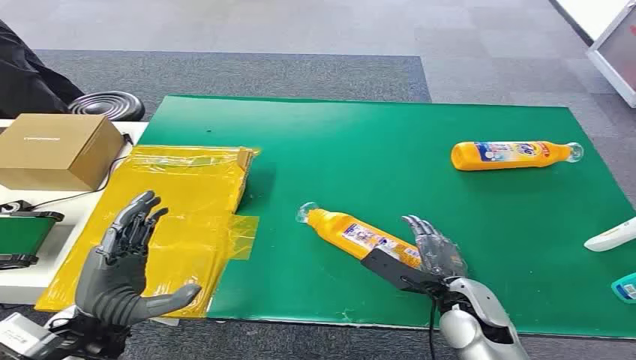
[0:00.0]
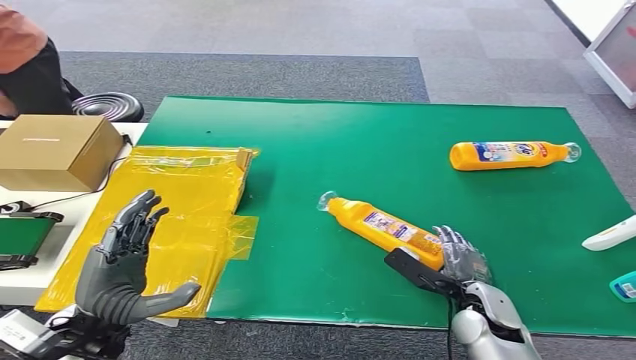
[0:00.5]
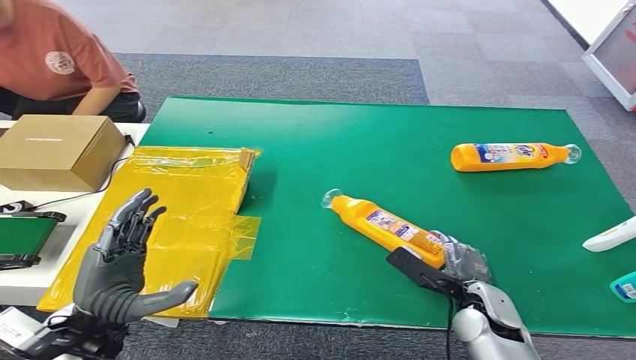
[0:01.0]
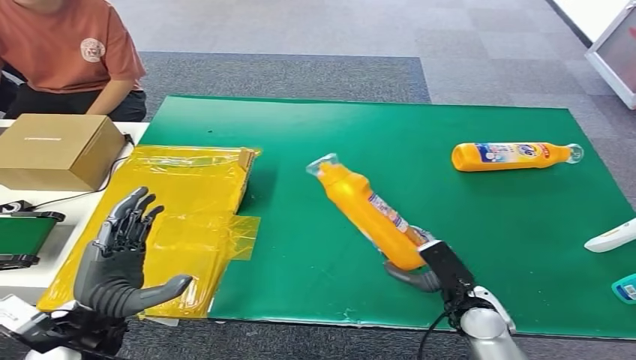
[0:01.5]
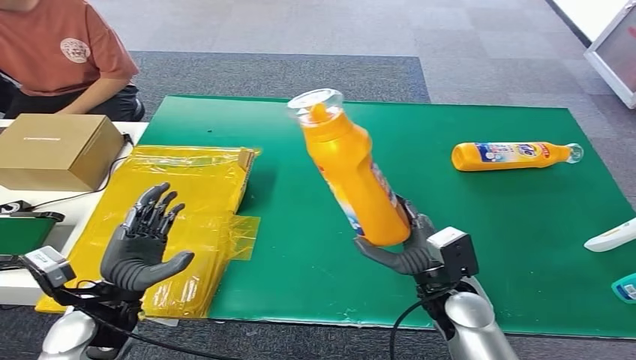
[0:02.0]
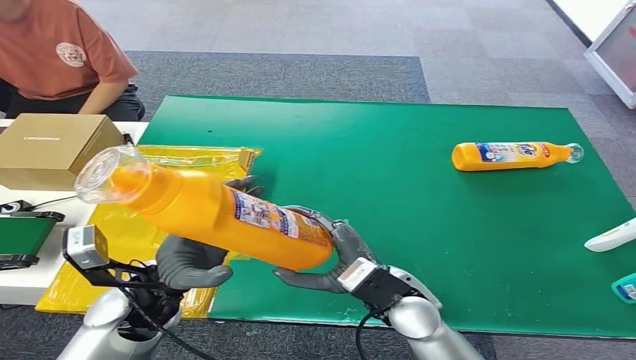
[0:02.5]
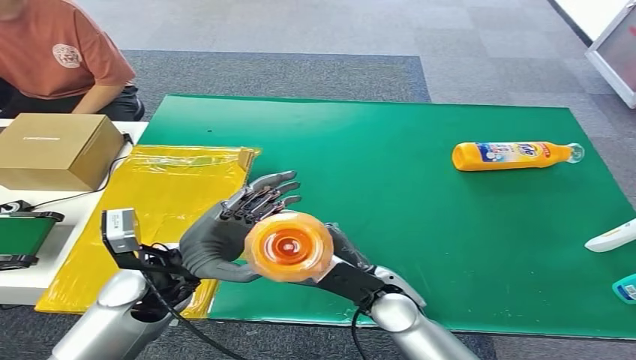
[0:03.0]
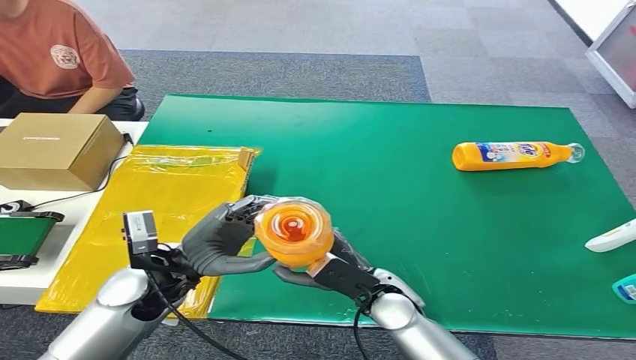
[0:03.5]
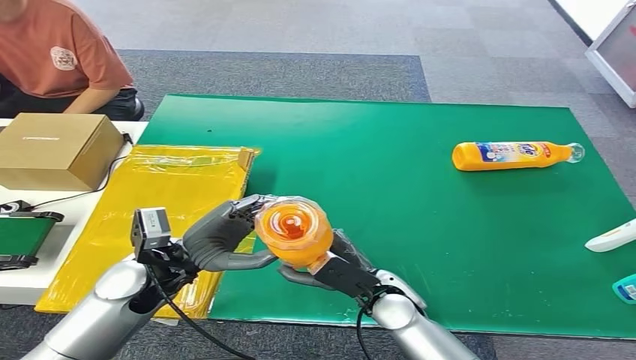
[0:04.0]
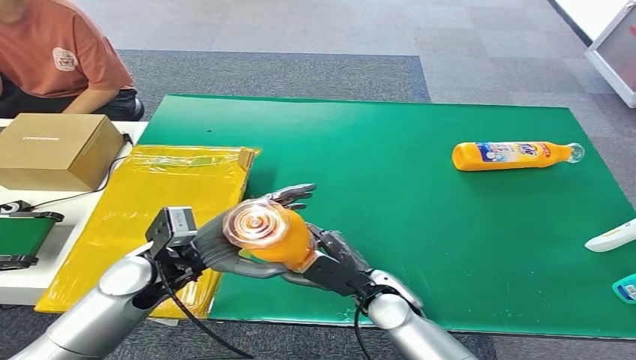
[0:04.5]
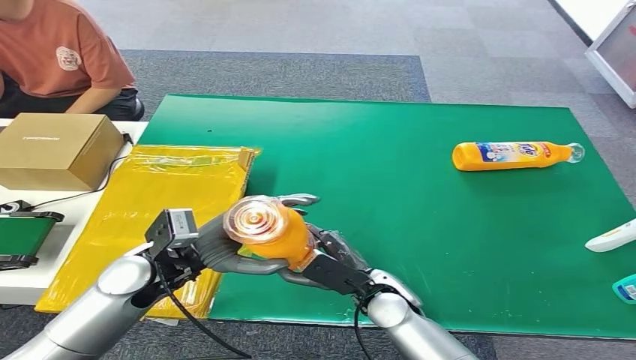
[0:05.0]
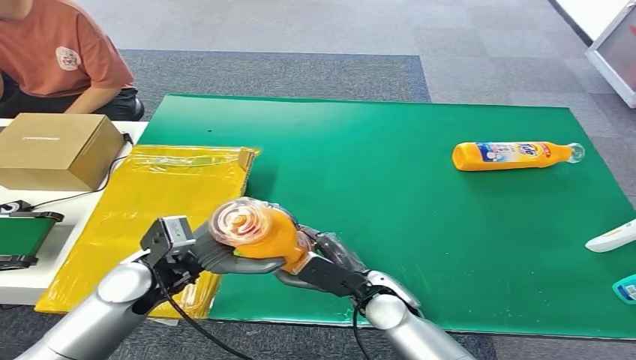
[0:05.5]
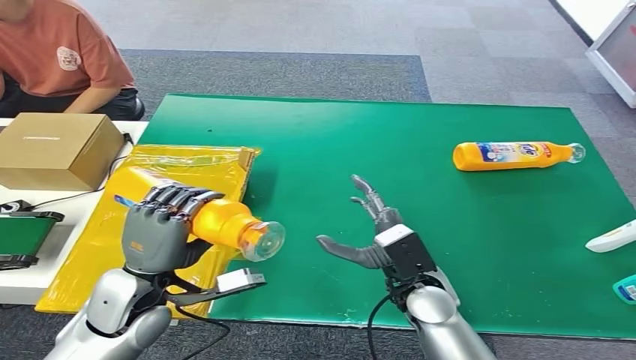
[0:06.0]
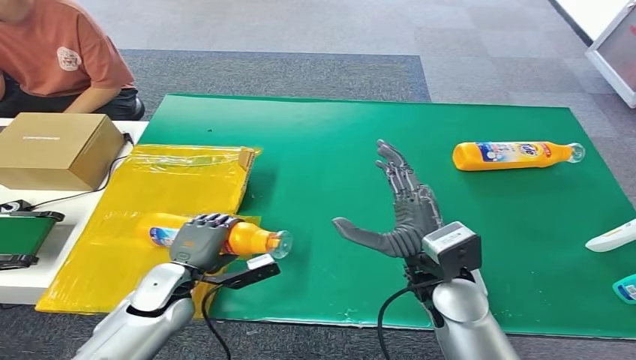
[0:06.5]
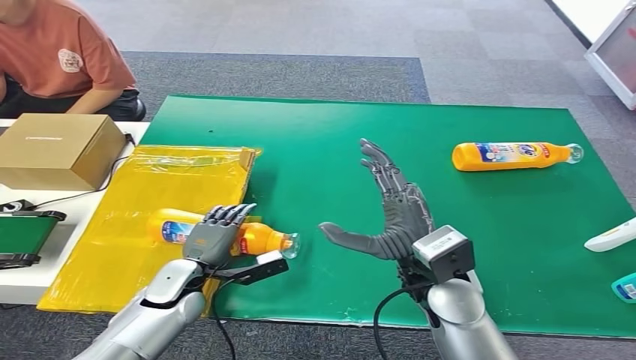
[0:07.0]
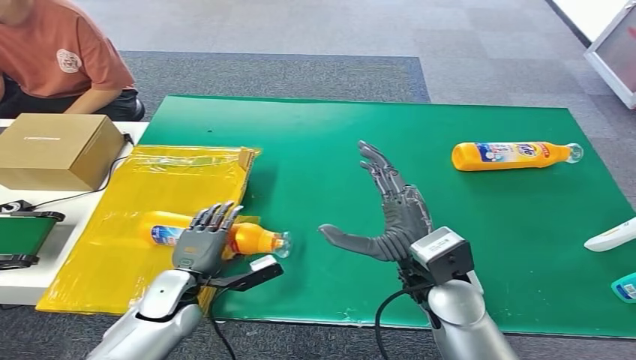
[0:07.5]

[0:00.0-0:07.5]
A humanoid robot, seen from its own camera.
Step, 0:00.0 to 0:02.0: Pick up the bottle from the table.
Step, 0:02.5 to 0:07.5: Turn the bottle to the front side.
0:04.0 to 0:05.5: The hands stay close to where they were, moving slightly.
0:05.5 to 0:07.5: The left hand goes approximately 10 cm downward; the right hand goes some 10 cm upward.
